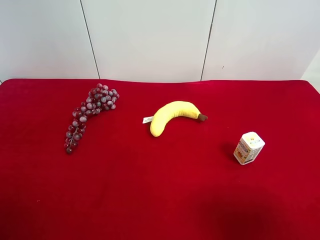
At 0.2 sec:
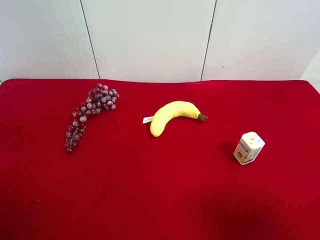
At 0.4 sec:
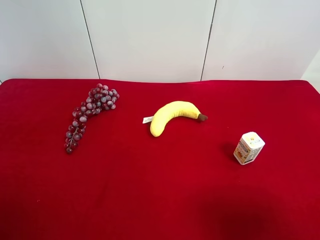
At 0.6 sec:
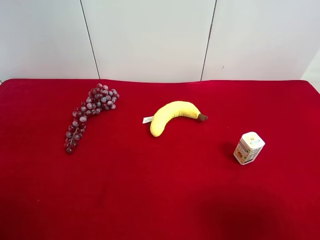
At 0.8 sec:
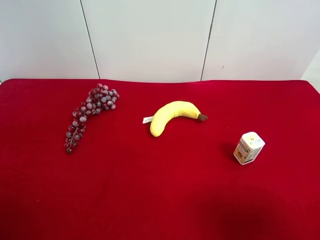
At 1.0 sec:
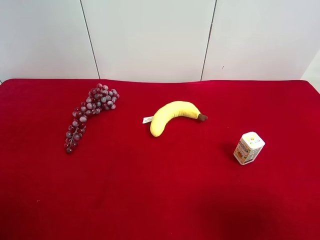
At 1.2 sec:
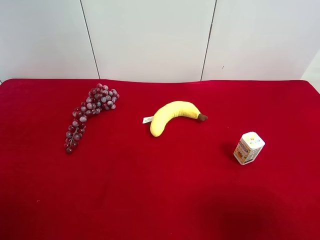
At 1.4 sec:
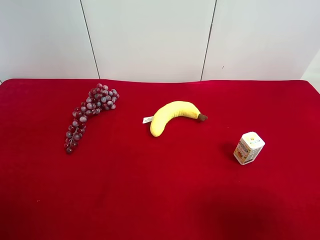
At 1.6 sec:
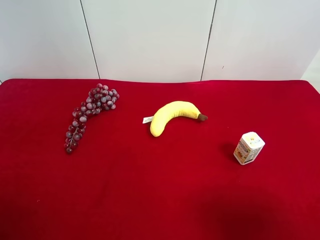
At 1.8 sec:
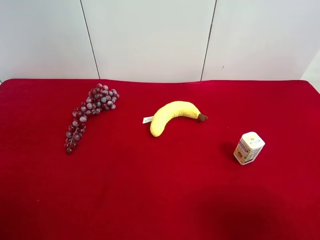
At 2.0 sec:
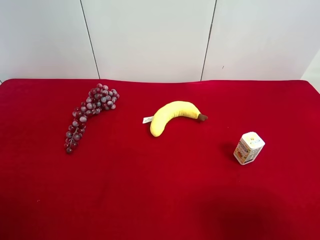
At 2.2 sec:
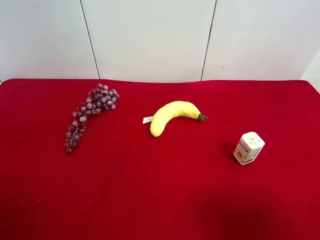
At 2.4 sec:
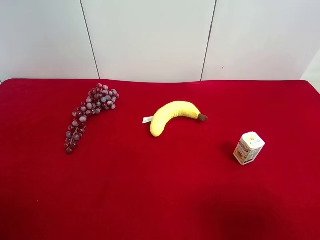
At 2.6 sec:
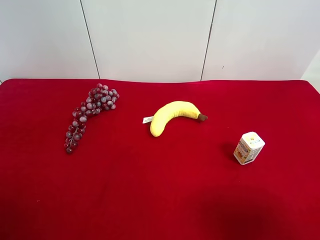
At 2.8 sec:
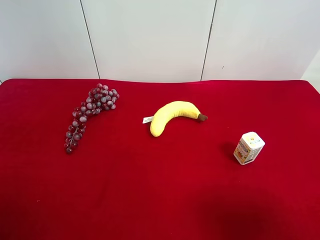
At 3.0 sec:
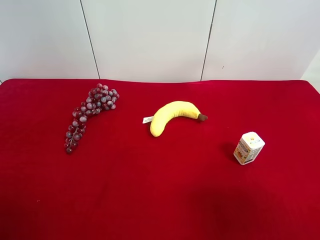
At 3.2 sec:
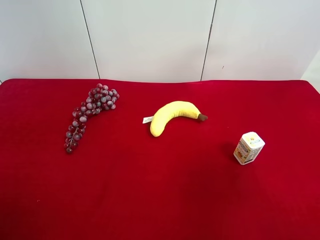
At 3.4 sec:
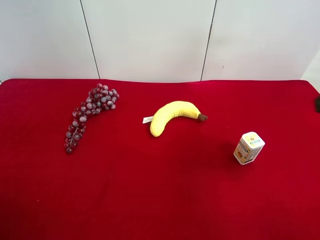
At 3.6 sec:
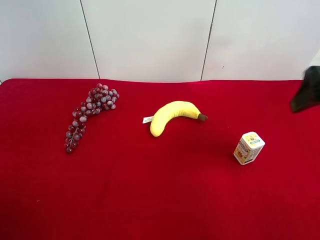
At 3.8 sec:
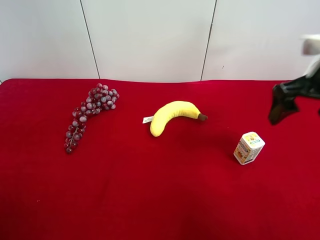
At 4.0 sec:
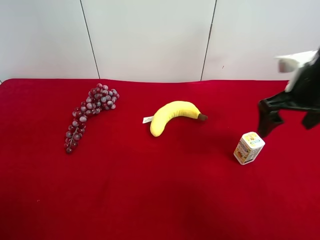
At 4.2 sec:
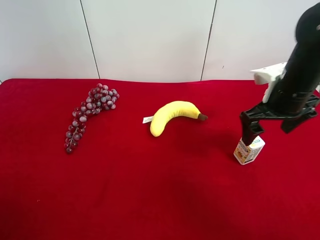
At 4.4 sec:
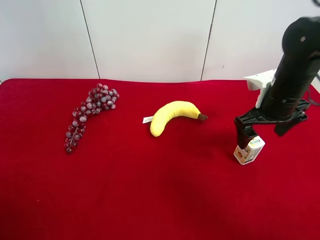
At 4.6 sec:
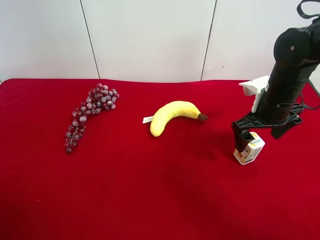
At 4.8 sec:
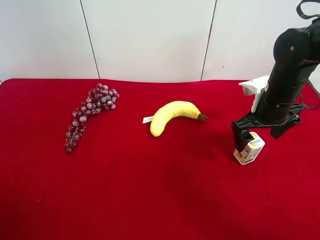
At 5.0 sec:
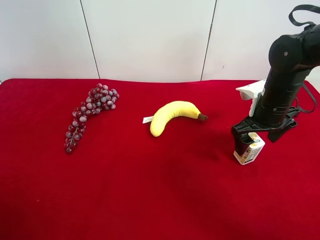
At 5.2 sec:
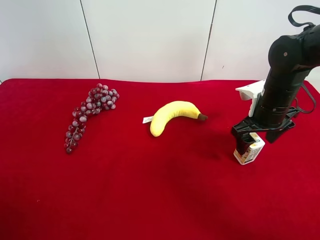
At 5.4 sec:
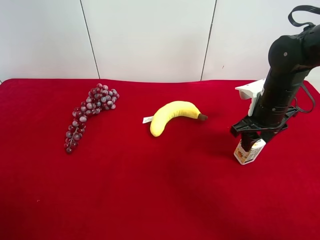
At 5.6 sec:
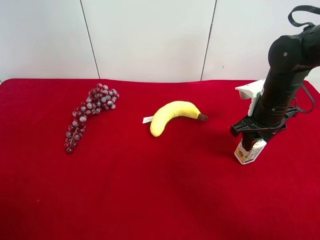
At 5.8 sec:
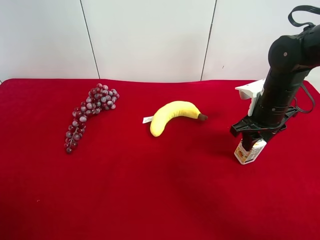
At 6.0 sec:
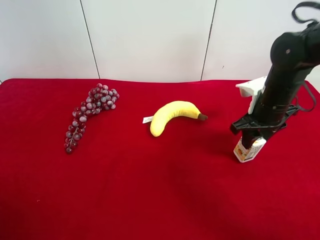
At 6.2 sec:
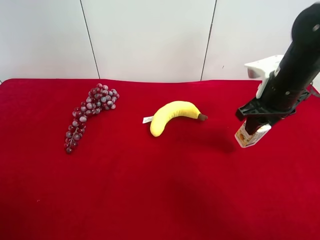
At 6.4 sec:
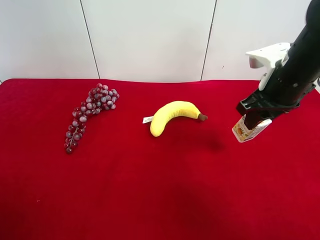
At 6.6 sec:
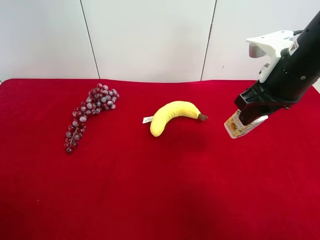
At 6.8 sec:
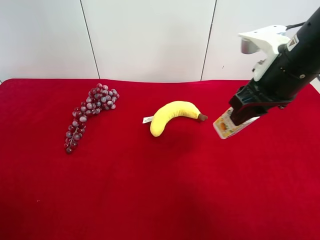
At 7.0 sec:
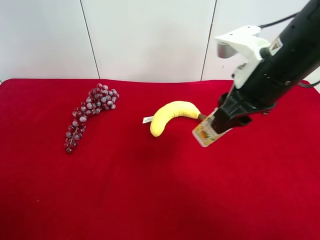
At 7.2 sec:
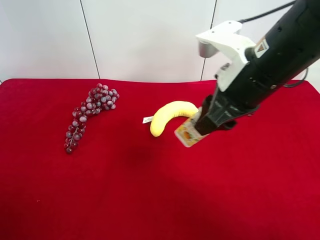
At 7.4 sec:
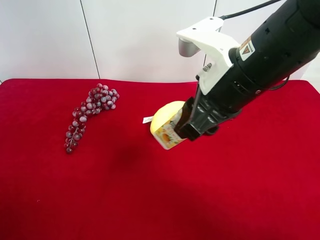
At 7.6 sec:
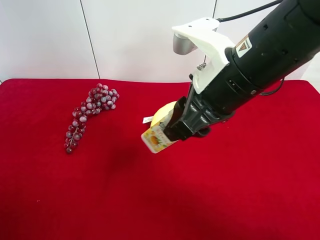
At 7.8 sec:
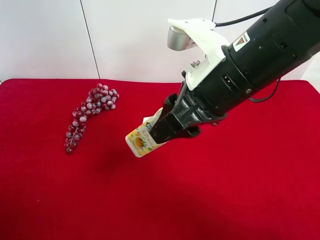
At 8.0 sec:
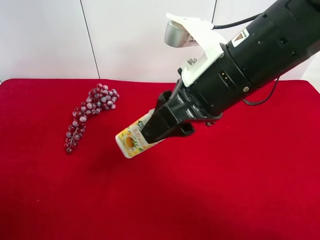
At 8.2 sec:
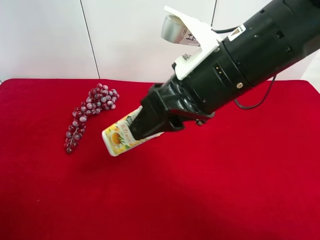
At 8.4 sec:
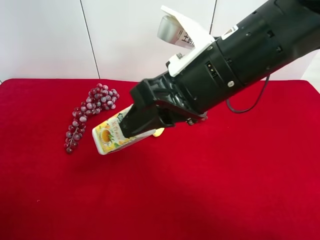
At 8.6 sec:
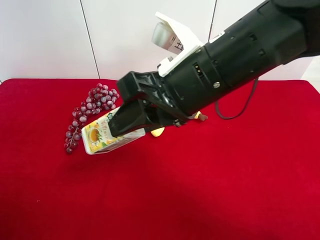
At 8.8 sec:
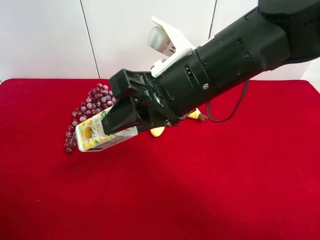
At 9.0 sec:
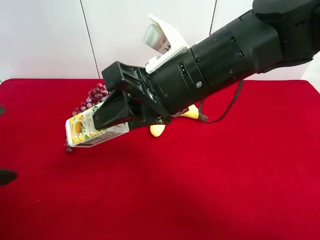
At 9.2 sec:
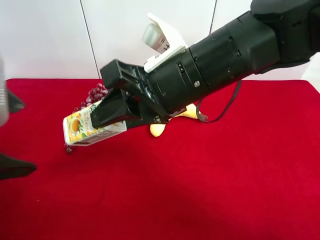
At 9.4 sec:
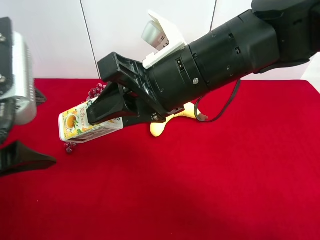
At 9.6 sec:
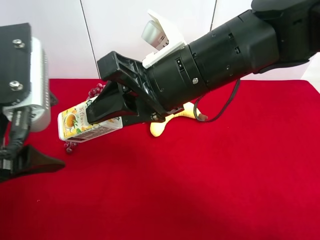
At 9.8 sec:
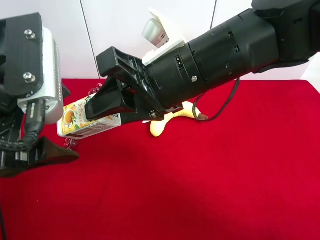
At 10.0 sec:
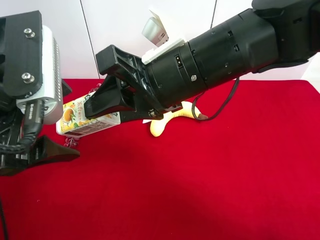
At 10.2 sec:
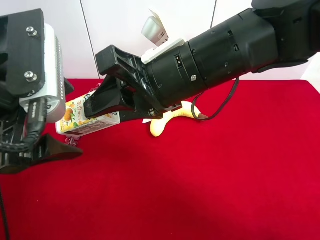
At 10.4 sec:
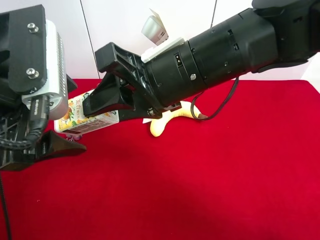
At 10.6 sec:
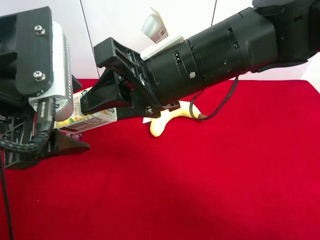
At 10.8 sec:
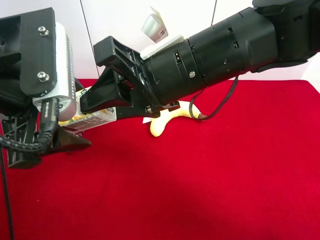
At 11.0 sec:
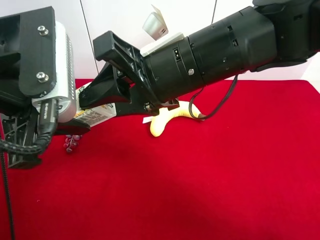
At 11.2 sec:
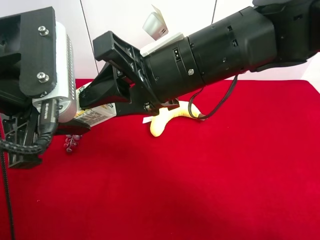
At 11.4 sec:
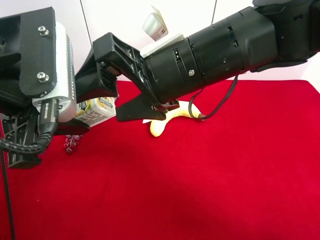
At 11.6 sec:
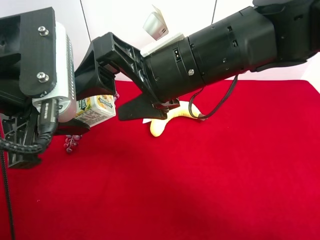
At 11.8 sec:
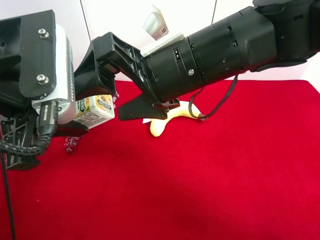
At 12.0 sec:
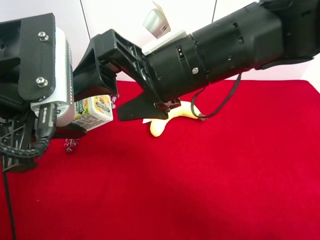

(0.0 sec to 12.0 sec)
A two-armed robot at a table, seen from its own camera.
Task of the whole recording: use the right gripper to pick up the item and transfer it from the right gripper to the left gripper.
Step, 0.0 sec - 5.4 sec: Use the right gripper to grab the square chewing gum on the right side of the table.
Step, 5.6 sec - 11.4 sec: Pass the square chewing gum to the left gripper.
0.0 sec - 1.6 sec: Both grippers stay put.
3.0 sec - 4.4 sec: The right gripper heads forward and downward, covering about 30 cm.
4.4 sec - 6.0 sec: The right gripper closes its fingers.
6.0 sec - 7.6 sec: The right gripper travels to the left, upward and backward by roughly 20 cm.
7.6 sec - 9.0 sec: The left gripper travels forward and to the right by about 15 cm.
9.0 sec - 10.4 sec: The left gripper heads to the right, covering some 5 cm.
10.4 sec - 12.0 sec: The left gripper closes. The right gripper opens.

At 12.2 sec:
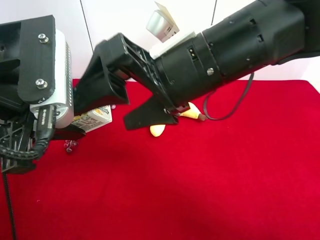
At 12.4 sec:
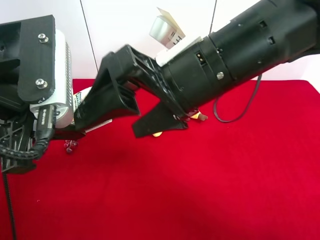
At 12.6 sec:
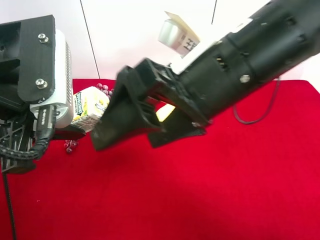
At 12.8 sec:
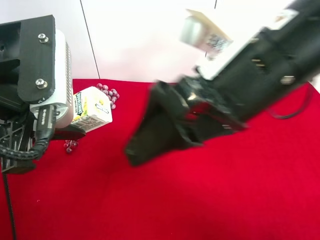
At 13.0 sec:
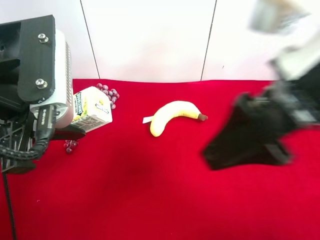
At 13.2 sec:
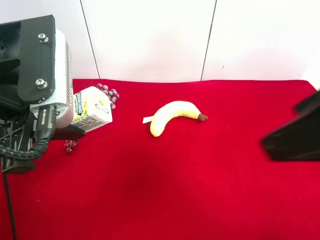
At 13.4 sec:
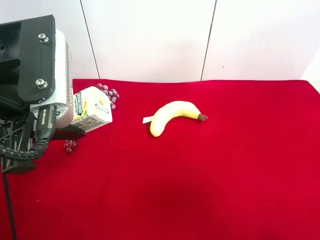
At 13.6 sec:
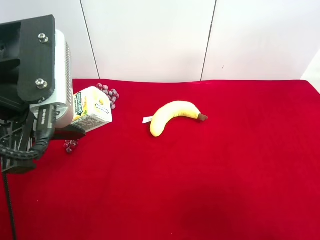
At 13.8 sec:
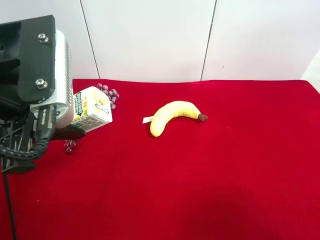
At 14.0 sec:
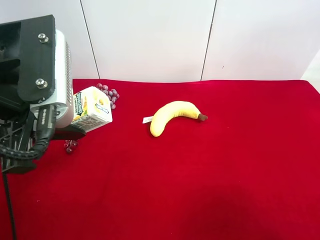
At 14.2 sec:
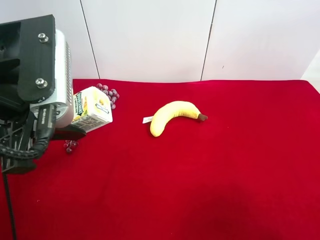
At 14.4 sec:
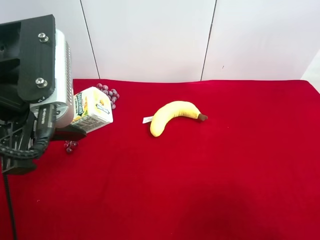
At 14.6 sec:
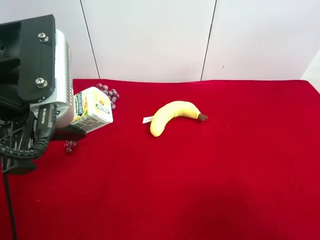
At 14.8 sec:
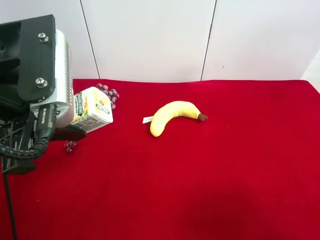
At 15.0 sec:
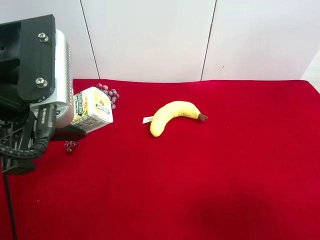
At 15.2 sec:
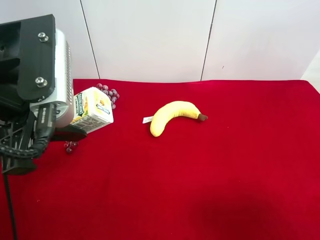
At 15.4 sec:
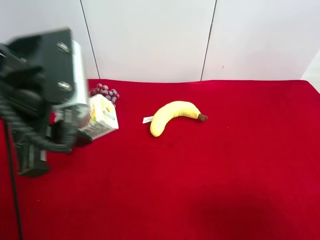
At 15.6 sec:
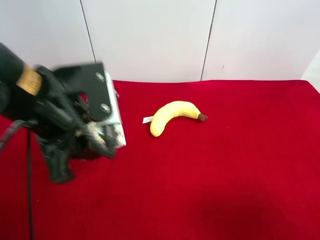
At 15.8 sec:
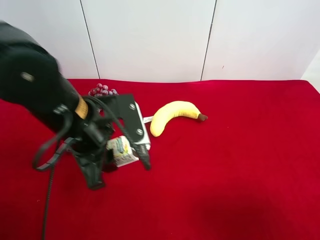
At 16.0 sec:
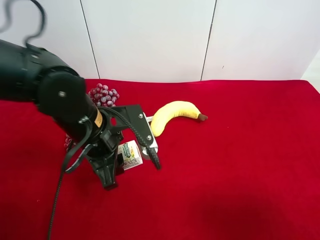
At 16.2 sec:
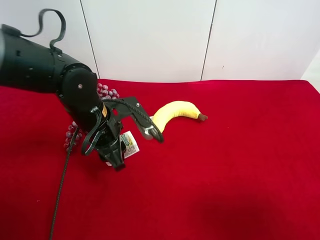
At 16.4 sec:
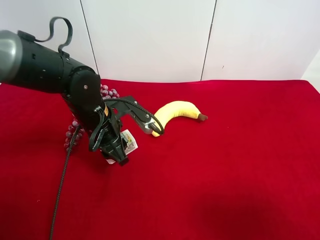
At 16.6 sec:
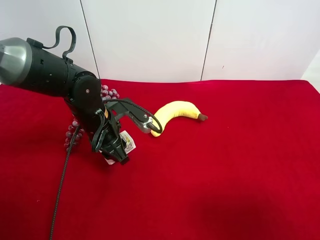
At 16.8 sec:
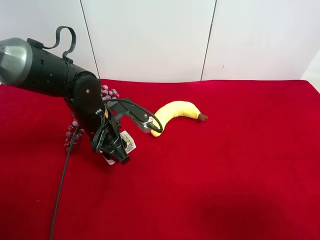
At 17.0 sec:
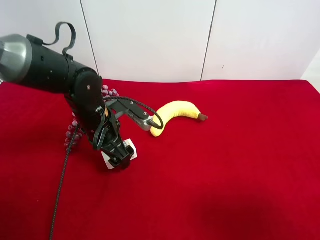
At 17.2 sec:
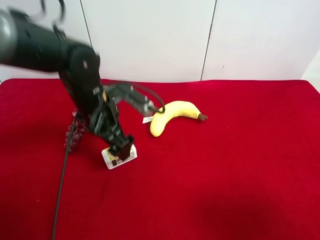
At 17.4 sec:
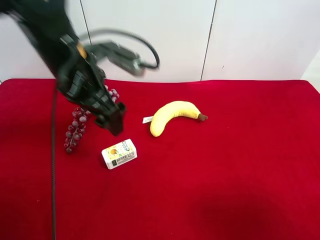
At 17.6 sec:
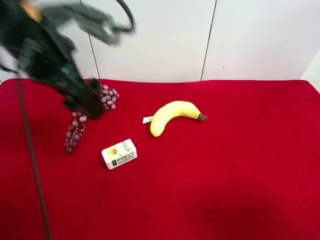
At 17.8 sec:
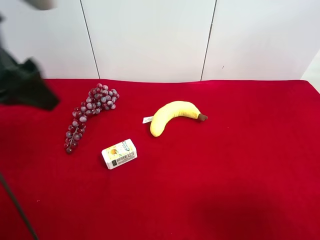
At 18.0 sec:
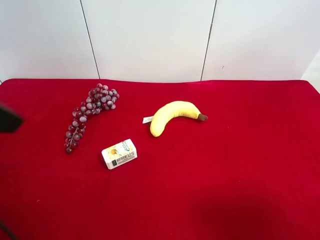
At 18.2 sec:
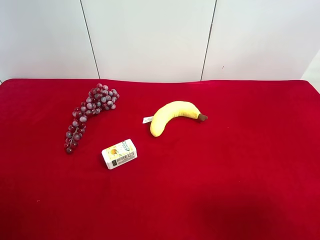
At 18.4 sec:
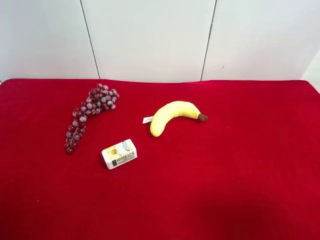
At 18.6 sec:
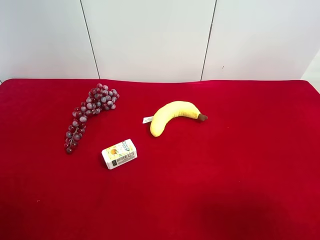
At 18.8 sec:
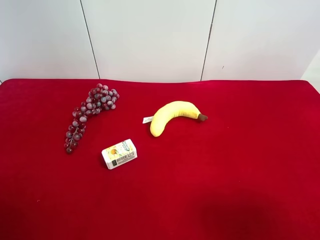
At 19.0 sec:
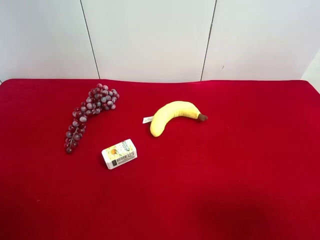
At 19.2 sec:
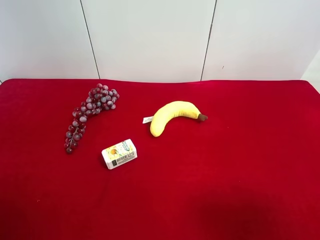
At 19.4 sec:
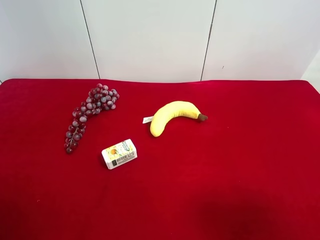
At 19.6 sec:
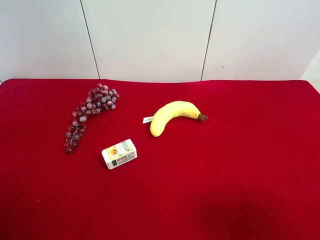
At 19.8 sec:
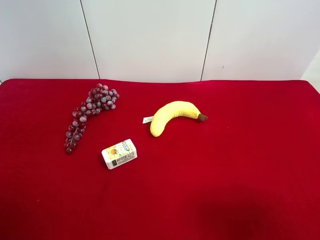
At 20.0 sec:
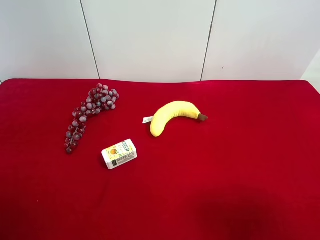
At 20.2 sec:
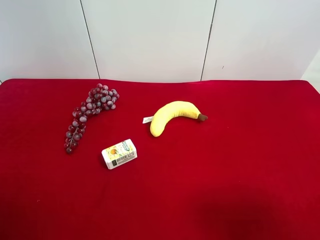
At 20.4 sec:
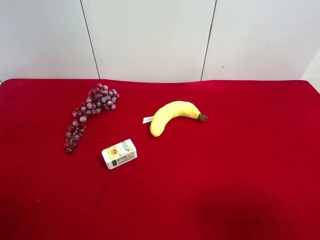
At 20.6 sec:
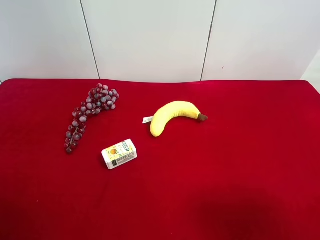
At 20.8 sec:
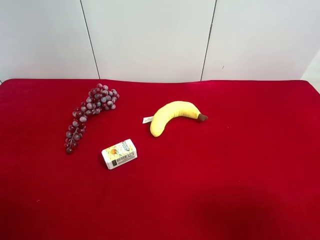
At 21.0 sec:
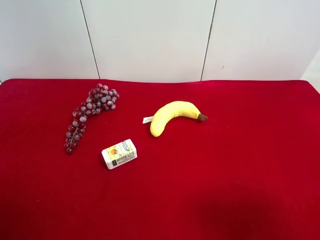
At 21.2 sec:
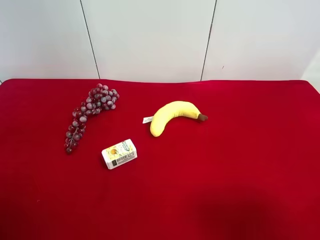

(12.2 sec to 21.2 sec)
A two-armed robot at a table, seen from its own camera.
Task of the whole recording: use the right gripper to pick up the item and transfer it from the right gripper to the left gripper.
Step, 12.2 sec - 17.0 sec: The left gripper places square chewing gum on the left side of the table.
12.2 sec - 13.8 sec: The right gripper travels to the right and backward by about 30 cm.
15.2 sec - 16.6 sec: The left gripper moves downward and forward, about 25 cm.
16.6 sec - 18.2 sec: The left gripper is displaced backward, upward and to the left by about 35 cm, and opens its fingers.
